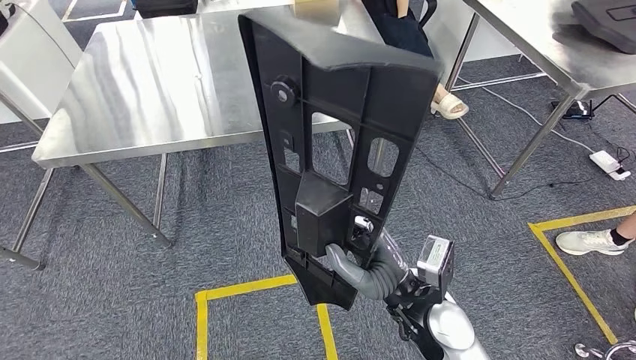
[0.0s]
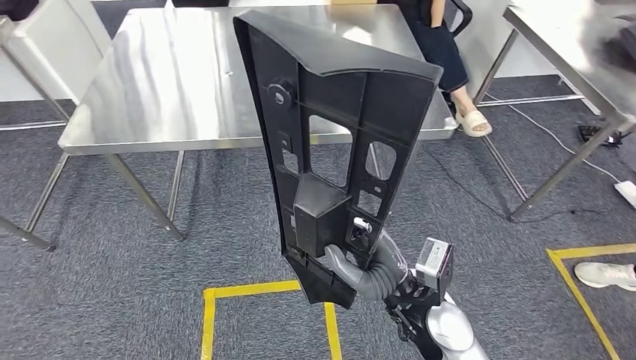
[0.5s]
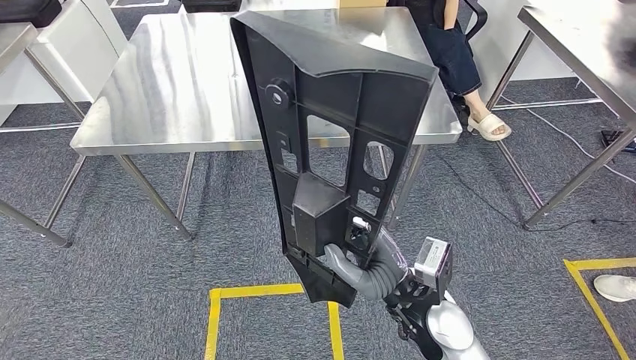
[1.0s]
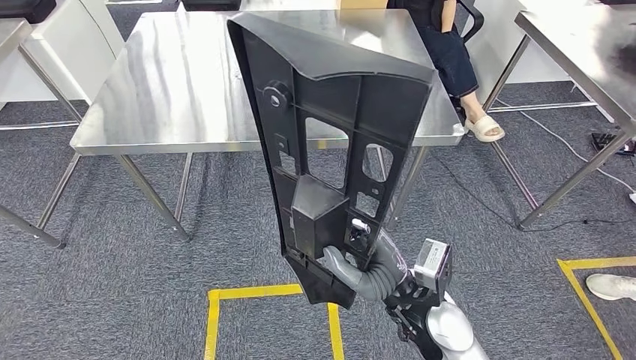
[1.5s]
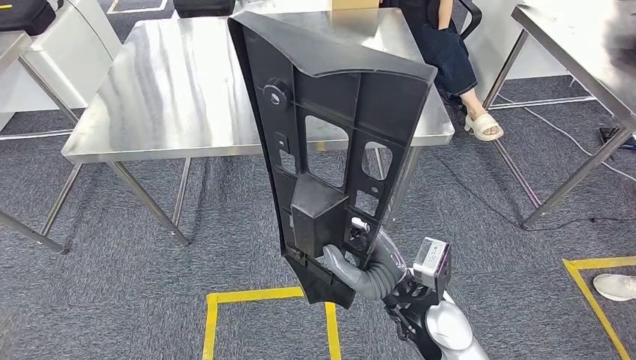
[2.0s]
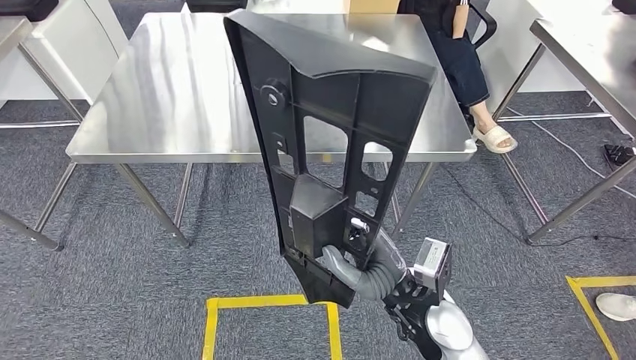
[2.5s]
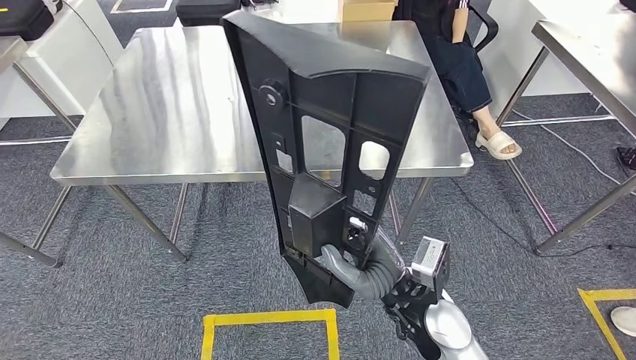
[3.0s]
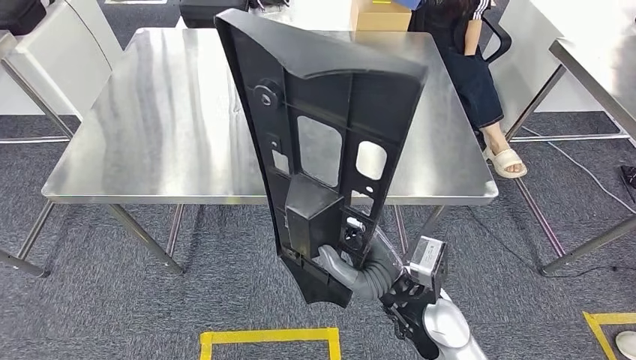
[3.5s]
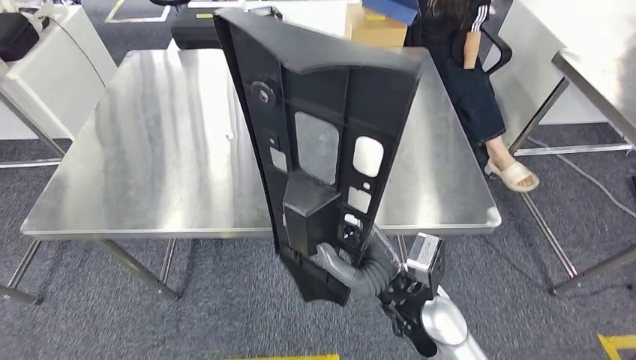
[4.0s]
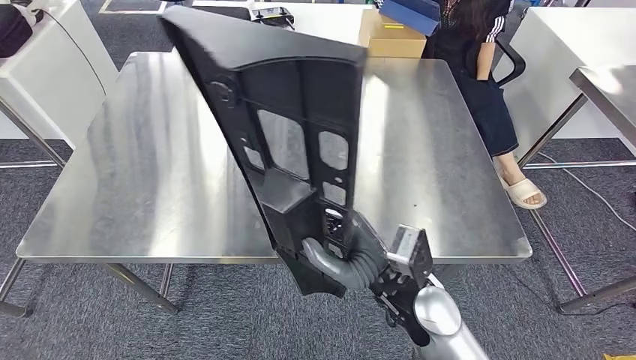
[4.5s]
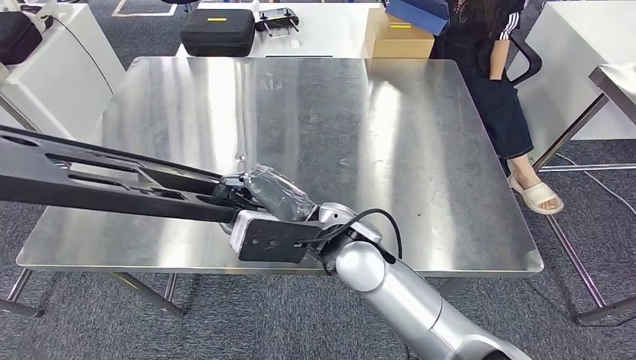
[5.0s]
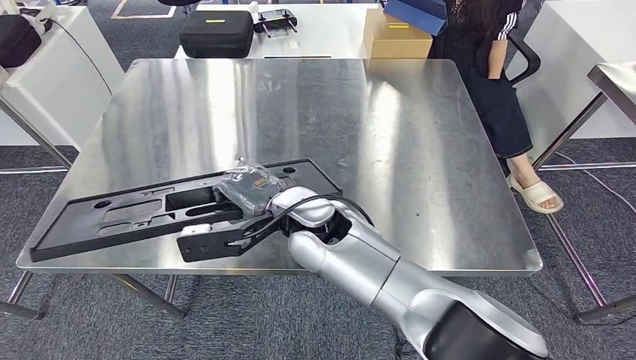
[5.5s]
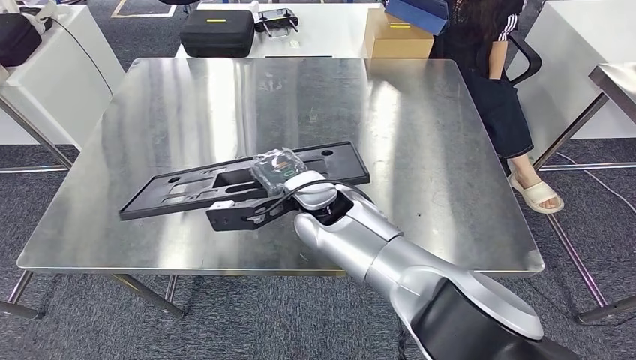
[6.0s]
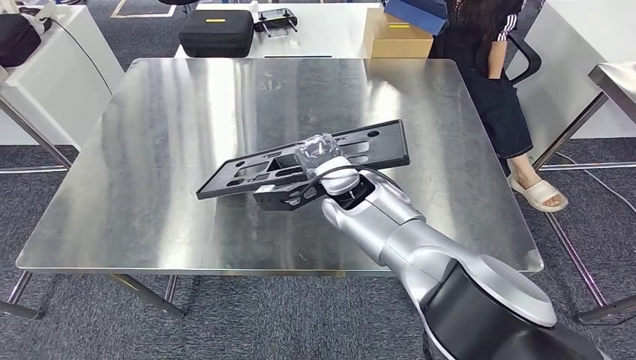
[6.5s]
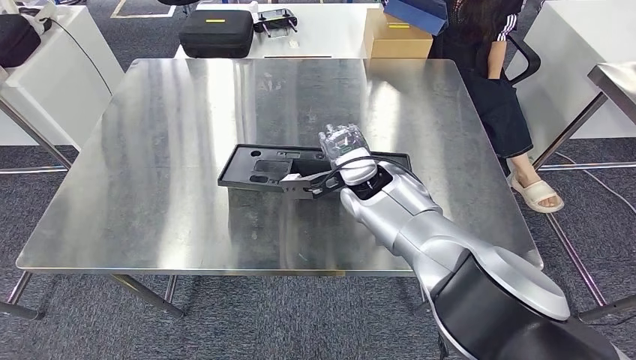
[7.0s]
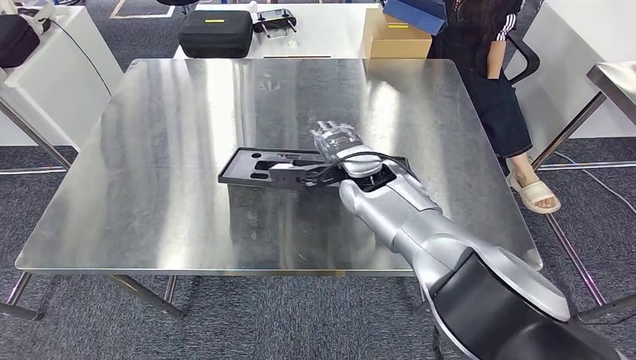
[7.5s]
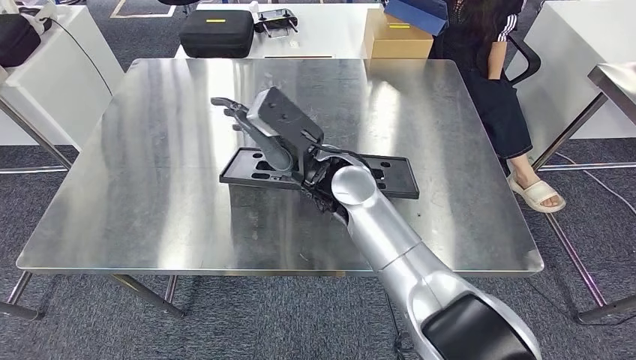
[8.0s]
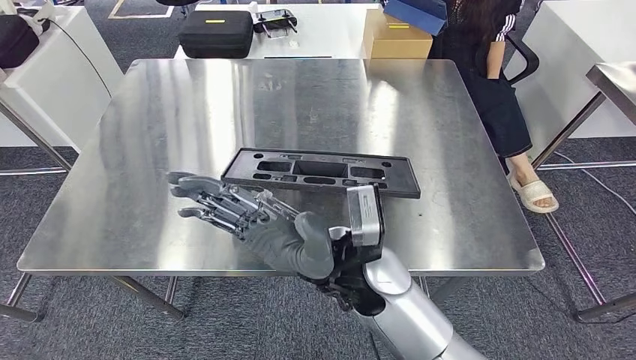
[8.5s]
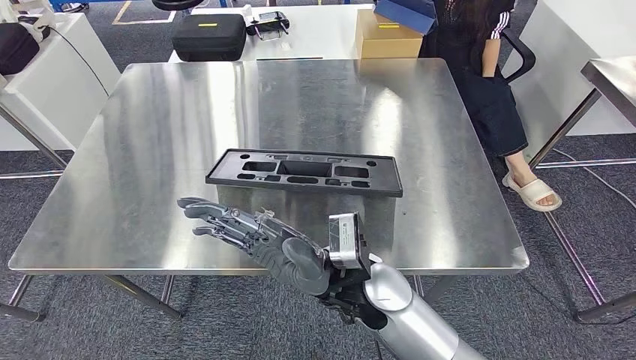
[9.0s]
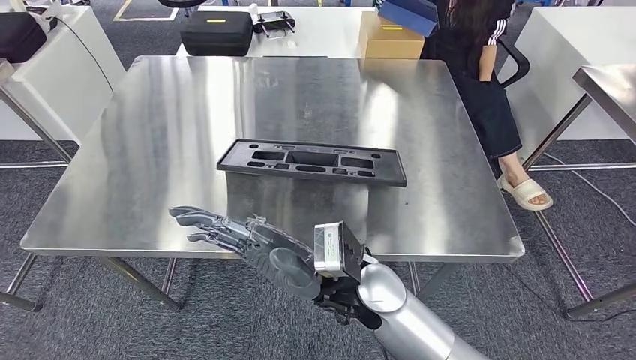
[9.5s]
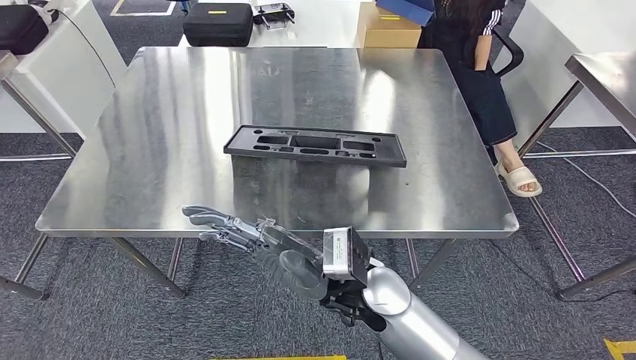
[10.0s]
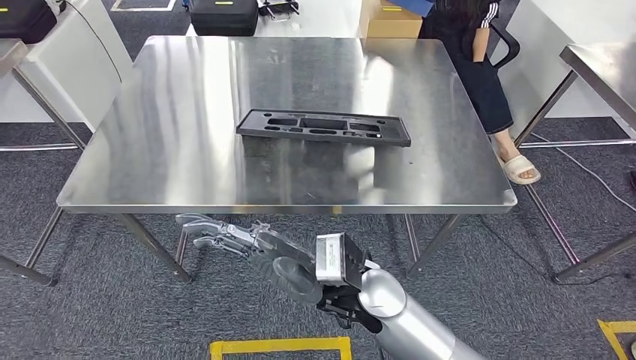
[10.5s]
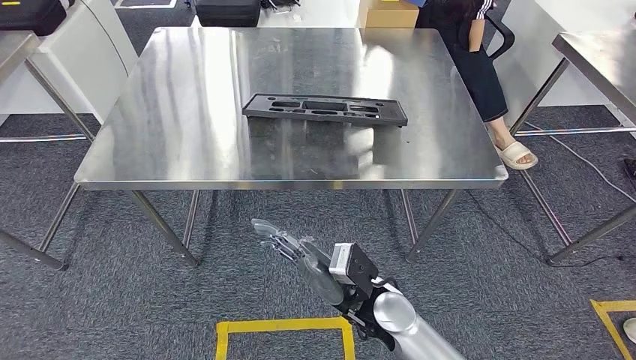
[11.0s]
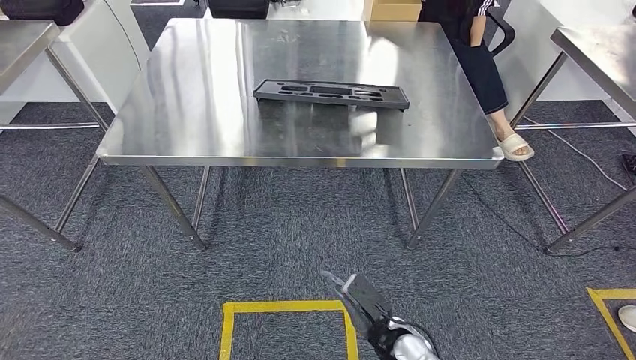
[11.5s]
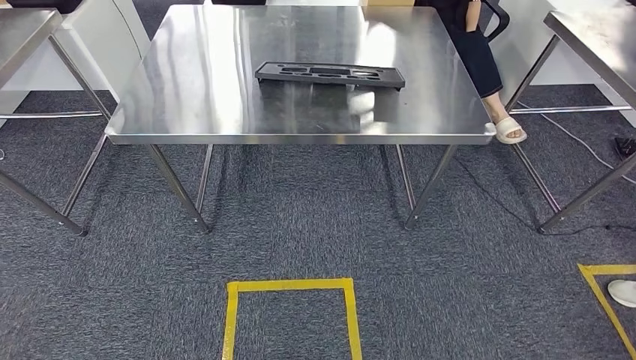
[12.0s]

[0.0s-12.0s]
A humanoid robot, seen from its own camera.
Step, 0.0s to 3.0s: Move the large material to the workbench.

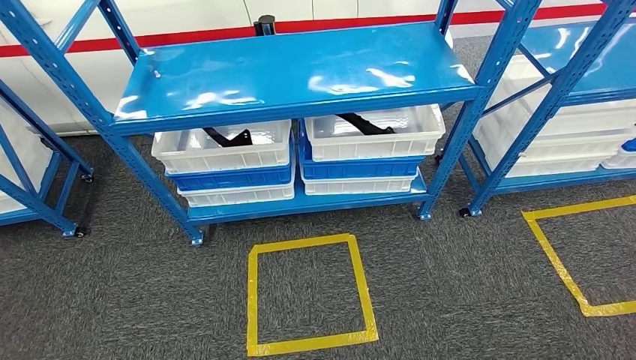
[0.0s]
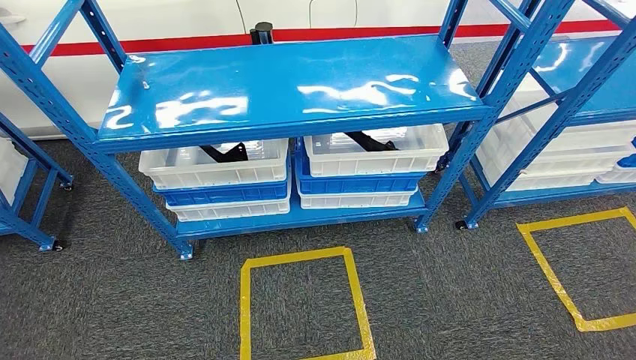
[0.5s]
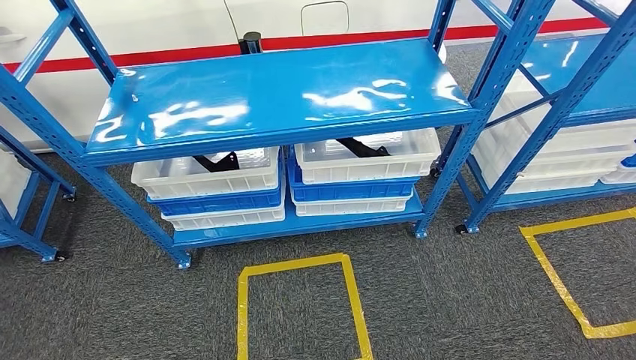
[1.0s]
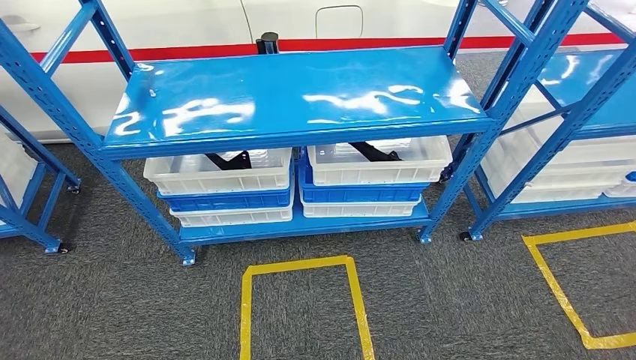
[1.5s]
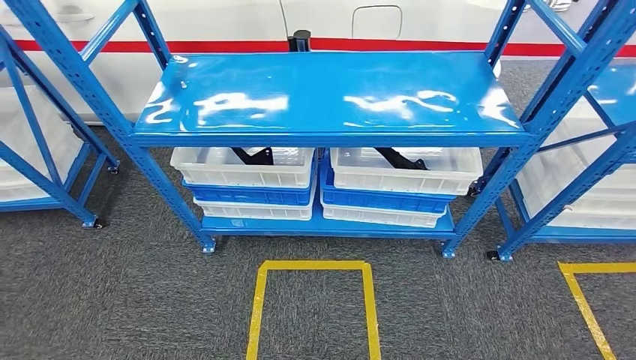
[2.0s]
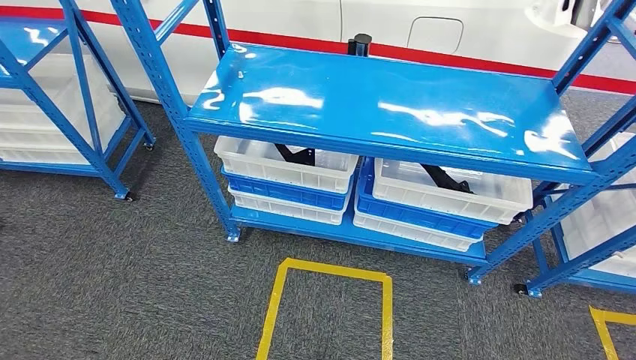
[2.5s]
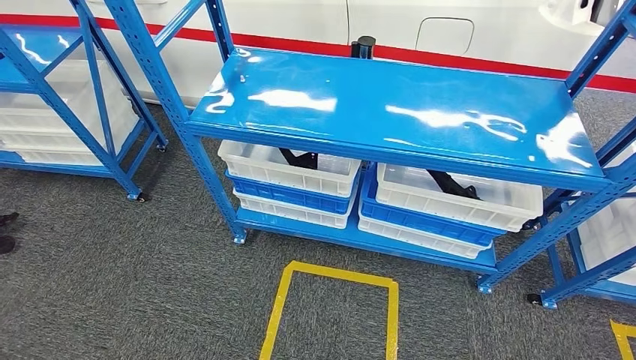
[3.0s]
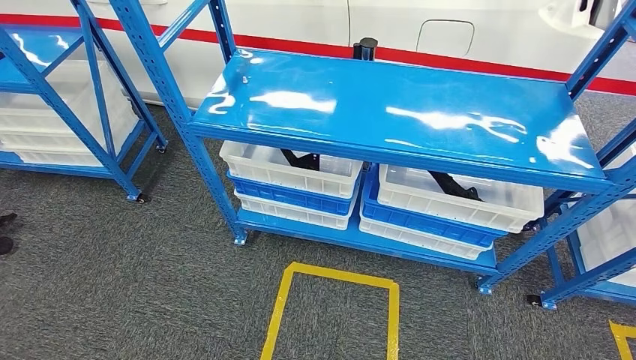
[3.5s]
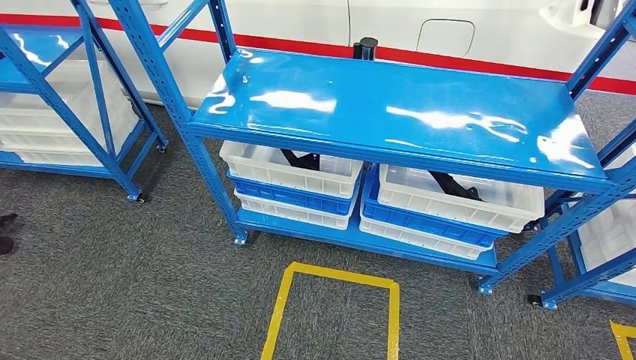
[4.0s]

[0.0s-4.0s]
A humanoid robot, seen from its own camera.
Step, 0.0s to 4.0s: Move to the initial position of the shelf.
